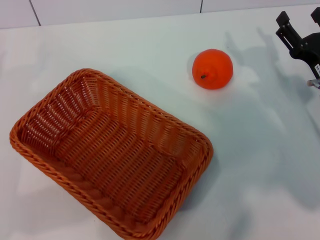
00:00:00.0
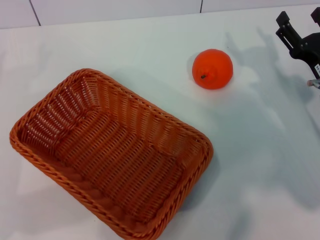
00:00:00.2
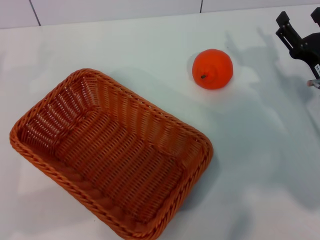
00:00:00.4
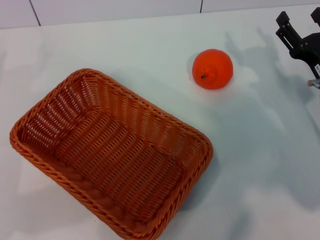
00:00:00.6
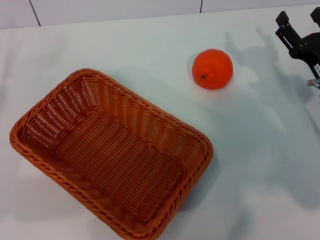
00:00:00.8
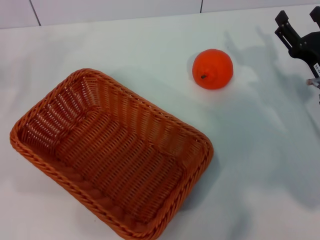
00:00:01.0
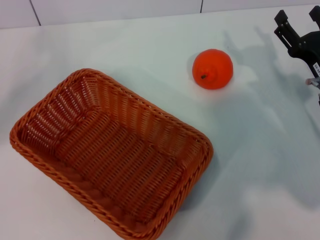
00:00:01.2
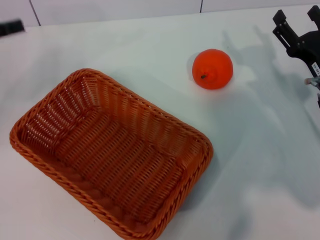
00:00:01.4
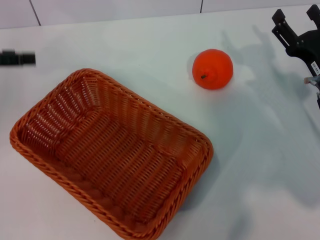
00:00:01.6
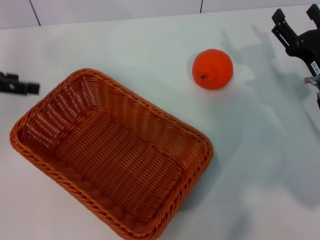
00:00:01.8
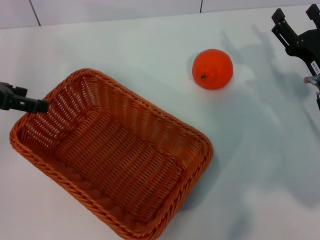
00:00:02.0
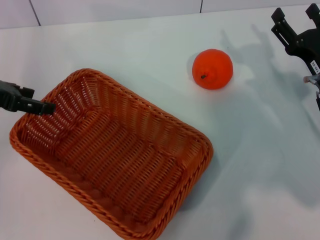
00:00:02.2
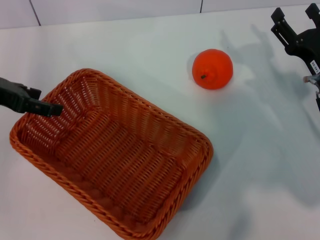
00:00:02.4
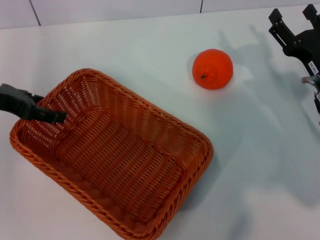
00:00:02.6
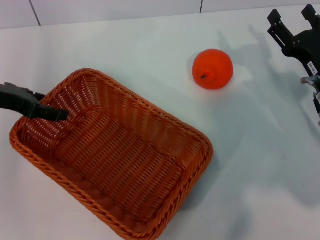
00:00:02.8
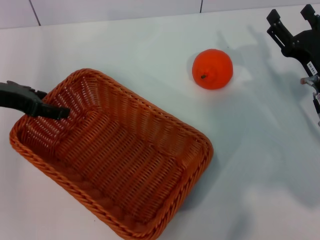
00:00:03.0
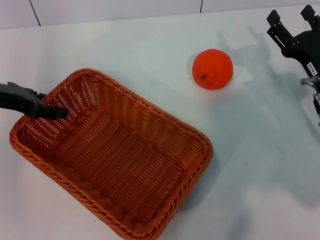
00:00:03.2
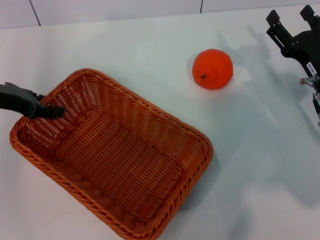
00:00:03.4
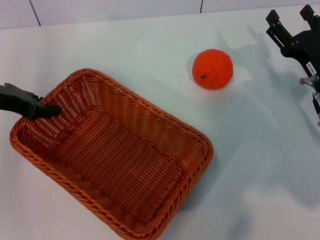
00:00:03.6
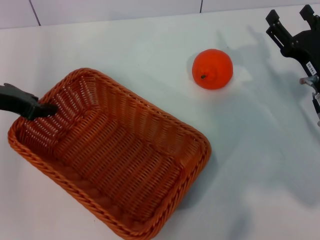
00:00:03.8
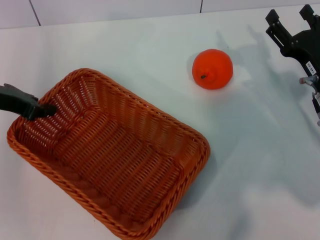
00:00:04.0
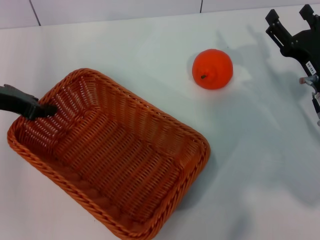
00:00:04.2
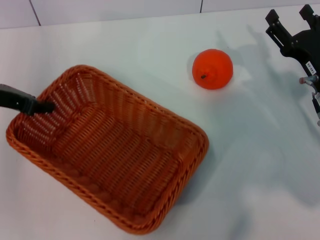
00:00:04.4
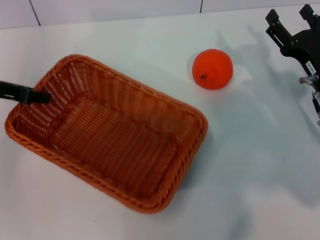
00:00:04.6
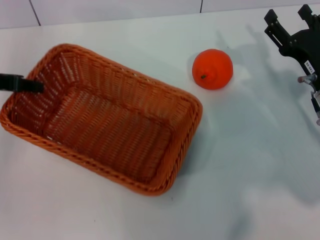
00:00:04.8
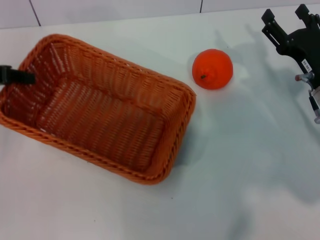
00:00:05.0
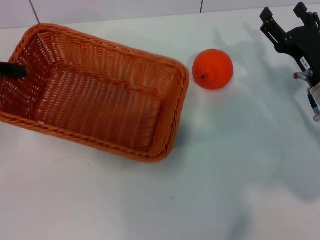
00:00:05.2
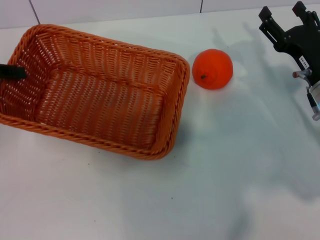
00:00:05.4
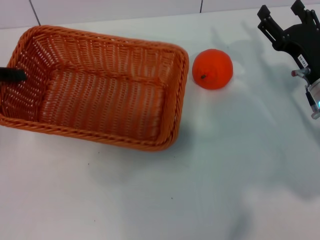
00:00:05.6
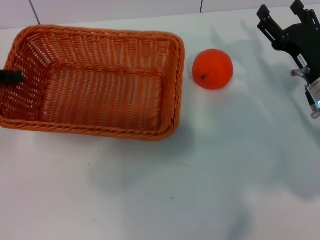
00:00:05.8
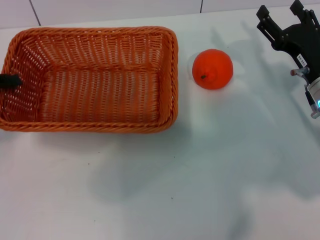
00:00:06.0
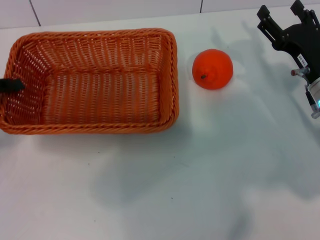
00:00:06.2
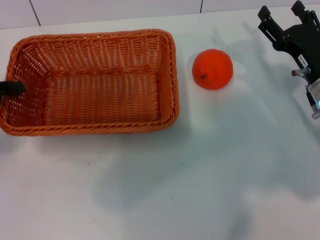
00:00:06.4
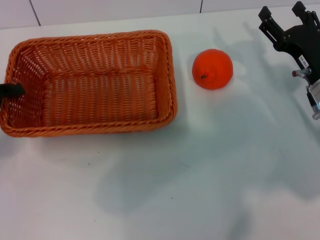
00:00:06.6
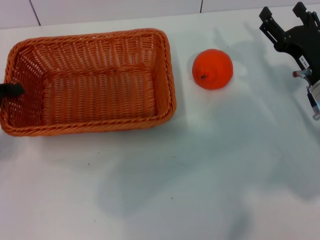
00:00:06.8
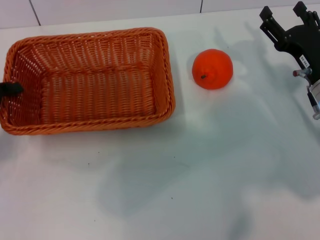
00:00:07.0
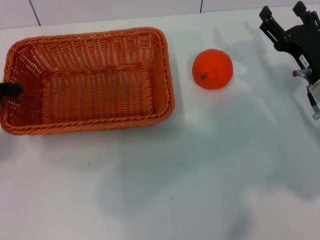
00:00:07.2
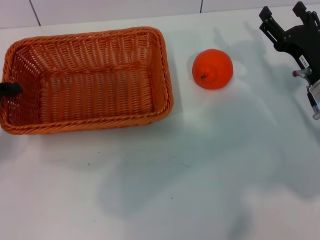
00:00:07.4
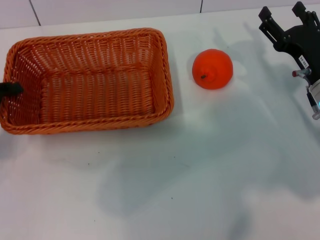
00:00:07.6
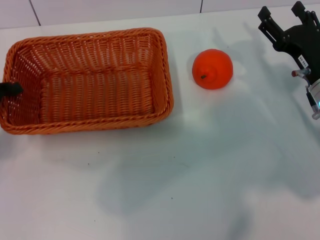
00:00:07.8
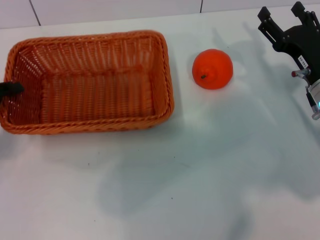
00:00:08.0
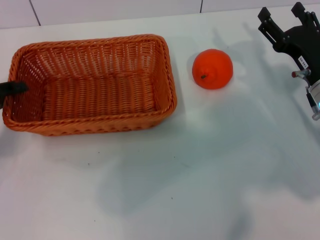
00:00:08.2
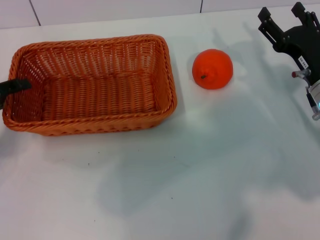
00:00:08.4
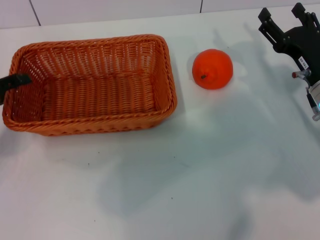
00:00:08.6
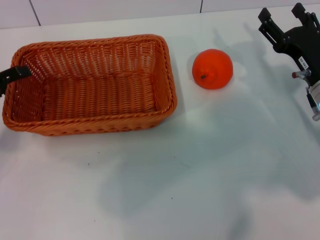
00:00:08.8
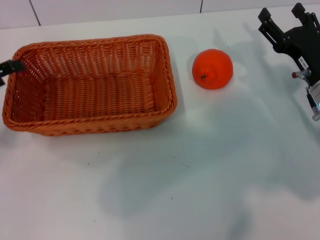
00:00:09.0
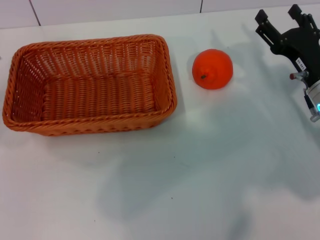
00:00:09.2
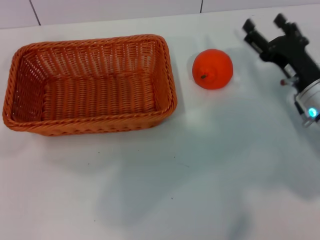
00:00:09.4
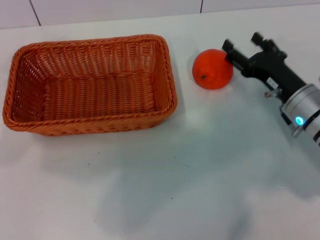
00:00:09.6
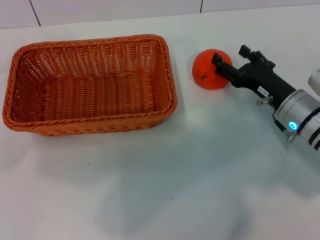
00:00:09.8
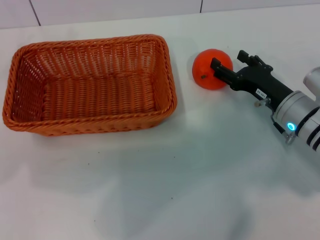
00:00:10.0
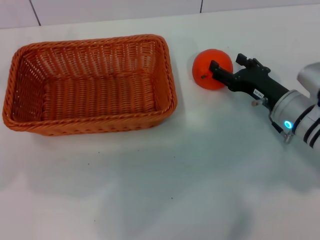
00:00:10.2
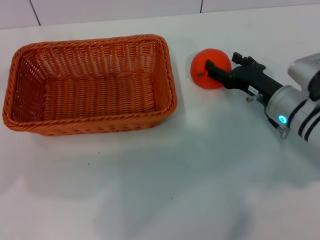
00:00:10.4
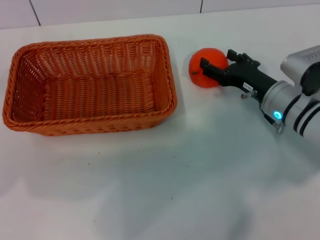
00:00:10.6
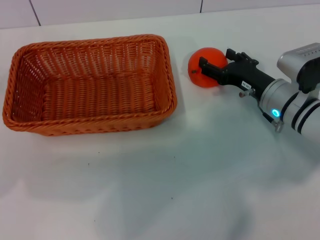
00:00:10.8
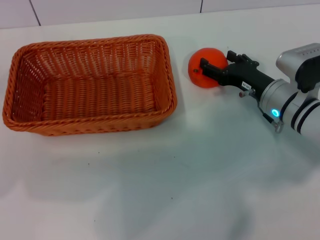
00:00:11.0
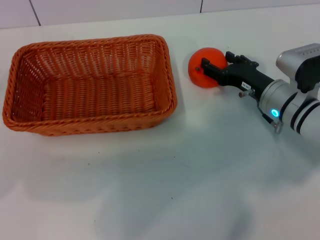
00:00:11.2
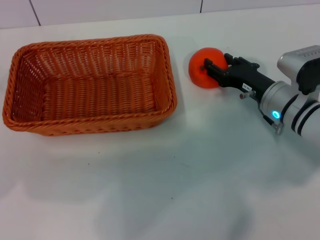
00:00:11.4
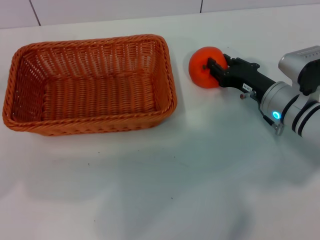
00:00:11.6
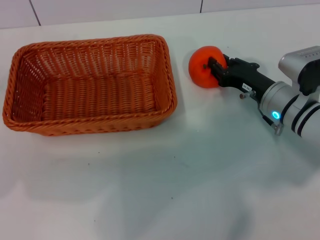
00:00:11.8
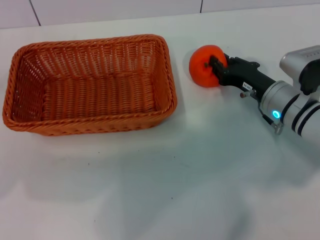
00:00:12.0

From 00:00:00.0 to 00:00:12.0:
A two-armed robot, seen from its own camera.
Task of the whole recording: the left gripper pick up the yellow basket and place it horizontally in the middle of the table, the right gripper pick up the orange and place it into the yellow basket.
Step, from 00:00:00.0 to 00:00:04.6: Pick up the light basket with the left gripper.
Step, from 00:00:04.8 to 00:00:08.8: Place the light basket in the center of view with the left gripper.
From 00:00:00.0 to 00:00:01.6: The left gripper shifts roughly 15 cm upward and forward.
From 00:00:01.6 to 00:00:03.0: The left gripper moves to the right, approximately 5 cm.
From 00:00:03.0 to 00:00:04.4: The left gripper closes.
From 00:00:04.4 to 00:00:06.0: The left gripper heads to the left, covering approximately 5 cm.
From 00:00:06.0 to 00:00:07.6: There are only small adjustments of the grippers.
From 00:00:07.6 to 00:00:09.0: The left gripper opens up.
From 00:00:09.0 to 00:00:10.4: The right gripper ends up approximately 5 cm from where it was.
From 00:00:10.4 to 00:00:12.0: The right gripper closes.

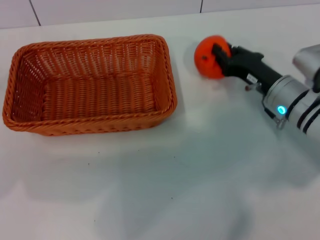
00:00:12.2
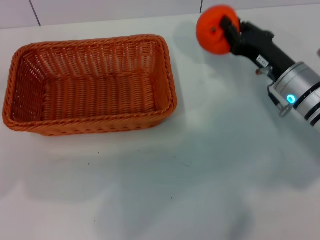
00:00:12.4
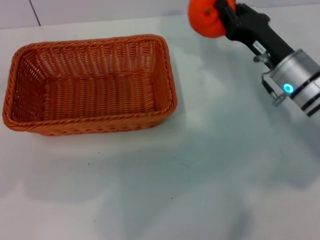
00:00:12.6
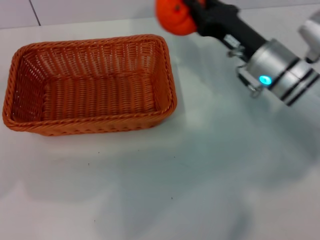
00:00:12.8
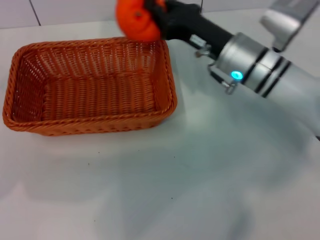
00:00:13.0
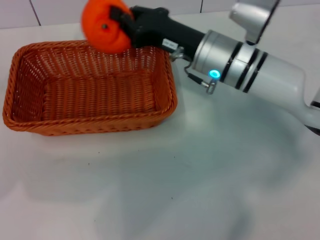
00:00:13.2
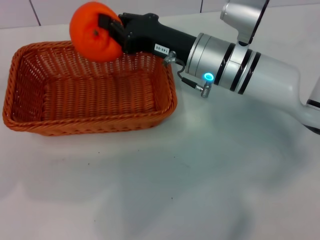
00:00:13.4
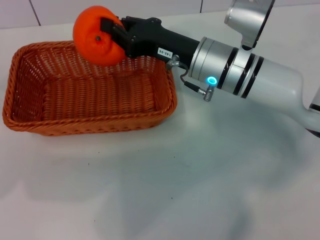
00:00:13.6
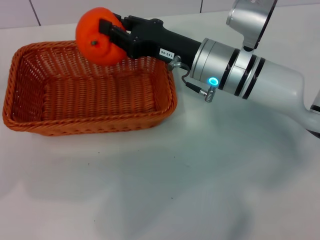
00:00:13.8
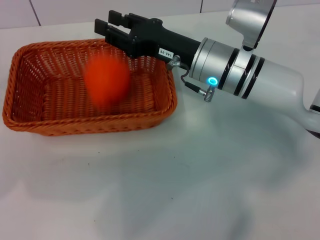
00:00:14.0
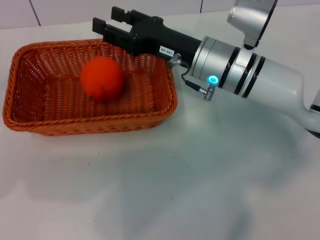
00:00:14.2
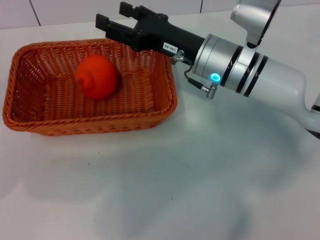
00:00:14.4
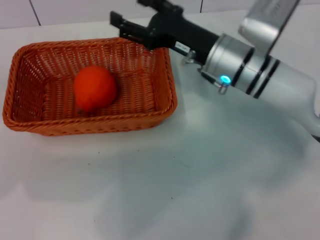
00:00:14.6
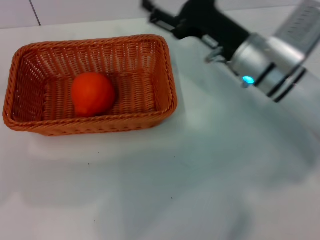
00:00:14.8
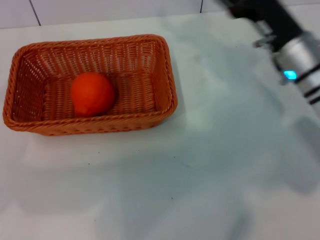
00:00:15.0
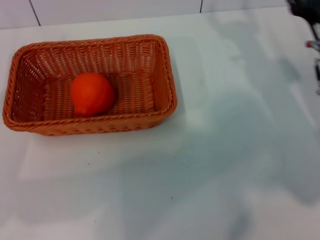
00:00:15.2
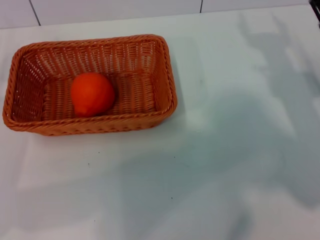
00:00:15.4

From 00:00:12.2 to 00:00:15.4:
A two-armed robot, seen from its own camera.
Task of the whole recording: the left gripper pick up the yellow basket and place it horizontally in the middle of the table, the right gripper pick up the orange and place it into the yellow basket.
Step, from 00:00:12.4 to 00:00:14.0: Place the orange into the light basket with the right gripper.
From 00:00:12.2 to 00:00:13.8: The right gripper goes approximately 15 cm to the left and upward.
From 00:00:13.8 to 00:00:15.4: The right gripper travels to the right by approximately 20 cm, and opens.
